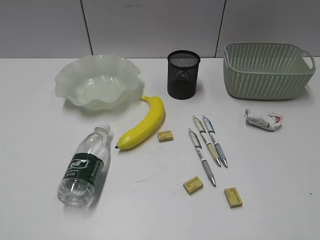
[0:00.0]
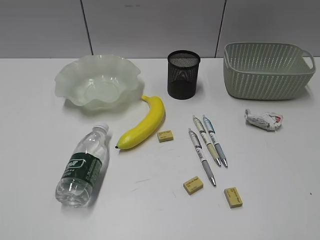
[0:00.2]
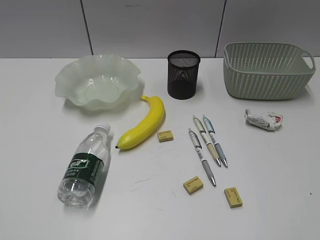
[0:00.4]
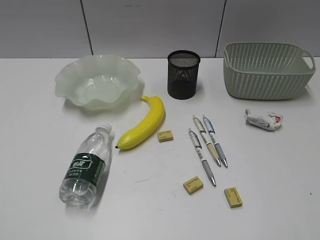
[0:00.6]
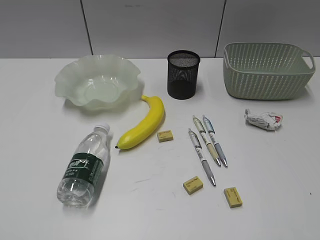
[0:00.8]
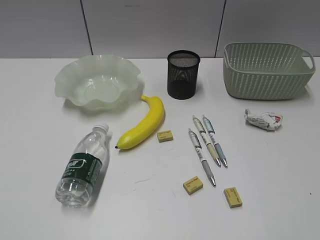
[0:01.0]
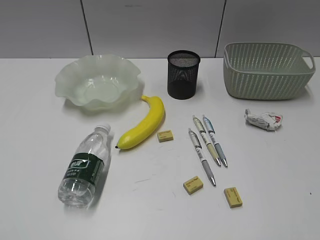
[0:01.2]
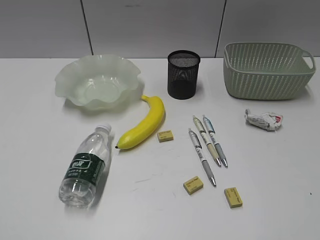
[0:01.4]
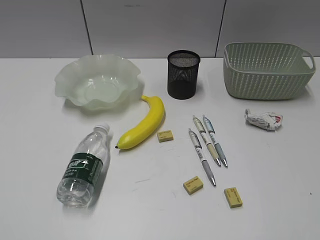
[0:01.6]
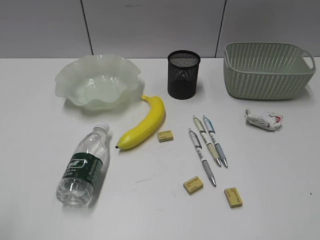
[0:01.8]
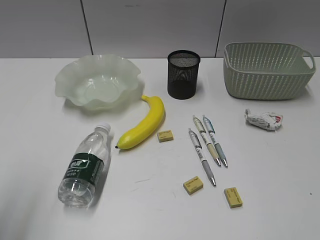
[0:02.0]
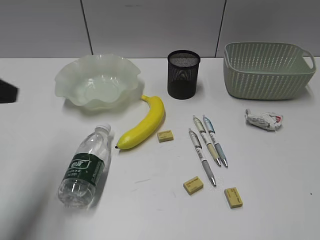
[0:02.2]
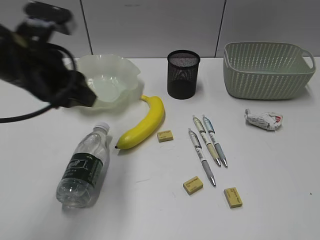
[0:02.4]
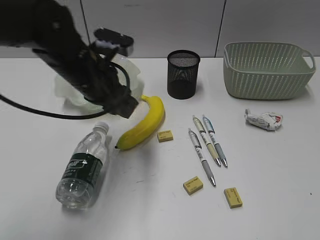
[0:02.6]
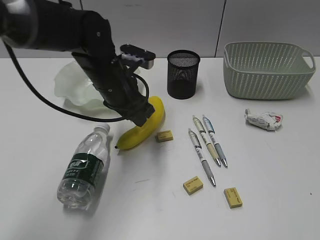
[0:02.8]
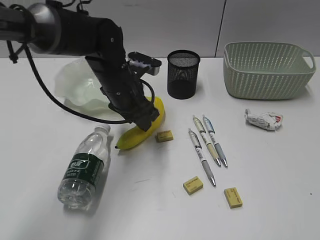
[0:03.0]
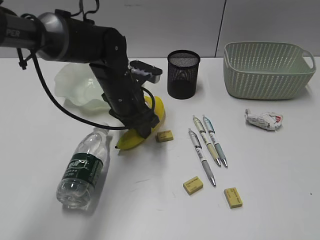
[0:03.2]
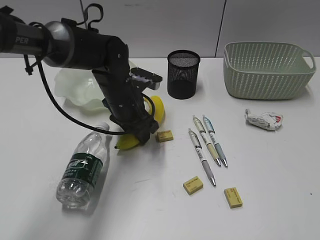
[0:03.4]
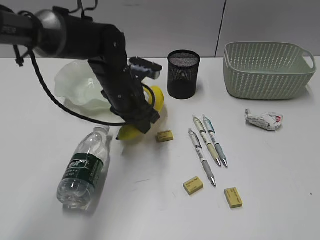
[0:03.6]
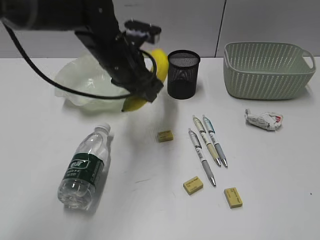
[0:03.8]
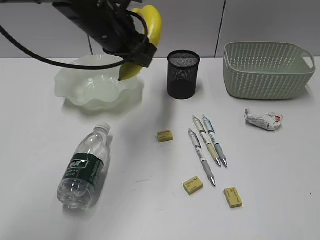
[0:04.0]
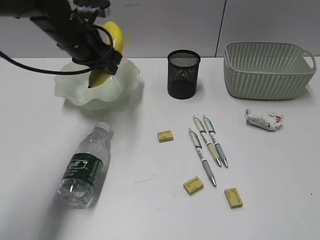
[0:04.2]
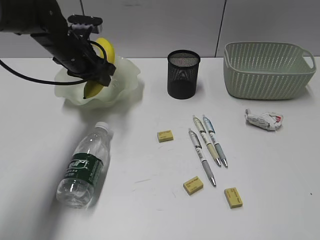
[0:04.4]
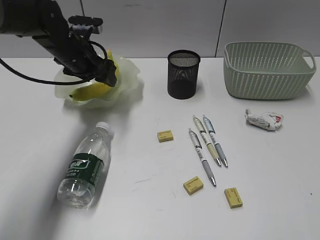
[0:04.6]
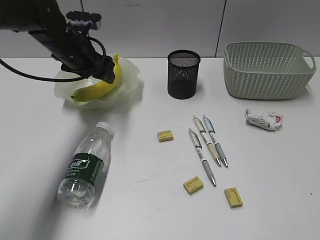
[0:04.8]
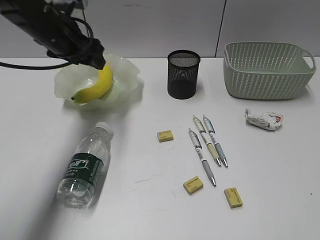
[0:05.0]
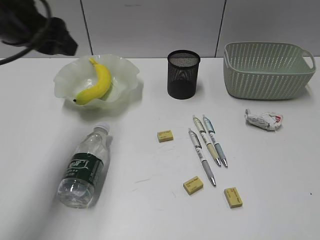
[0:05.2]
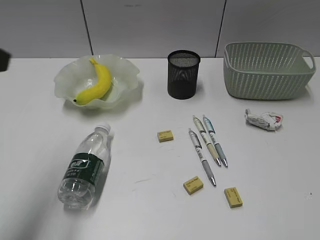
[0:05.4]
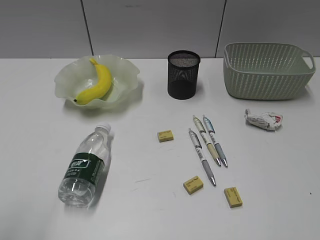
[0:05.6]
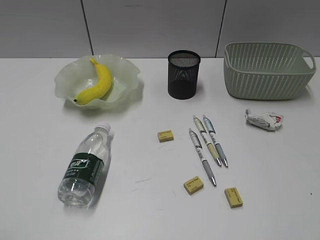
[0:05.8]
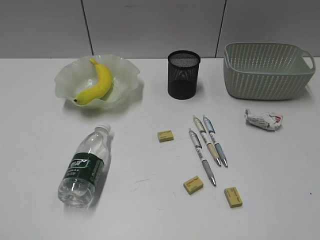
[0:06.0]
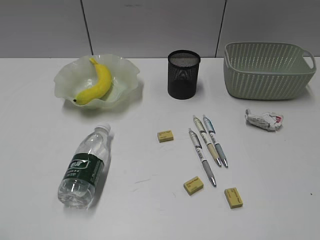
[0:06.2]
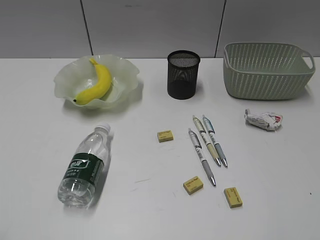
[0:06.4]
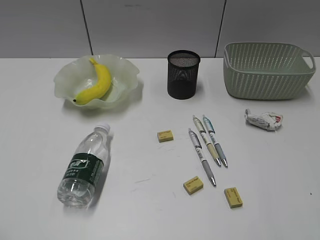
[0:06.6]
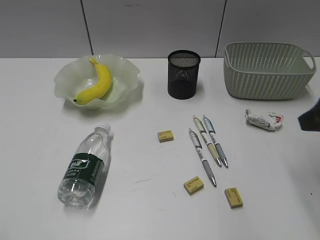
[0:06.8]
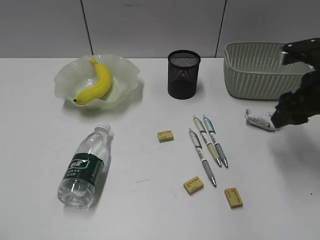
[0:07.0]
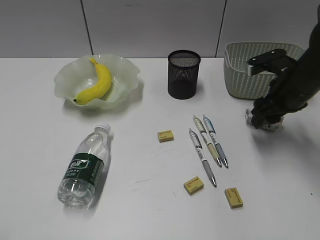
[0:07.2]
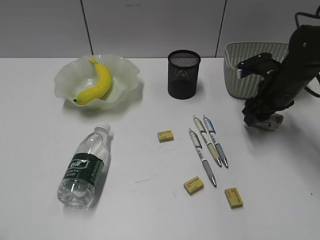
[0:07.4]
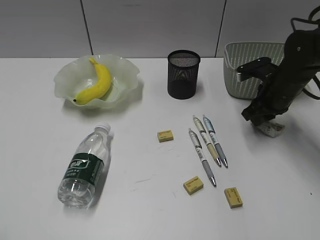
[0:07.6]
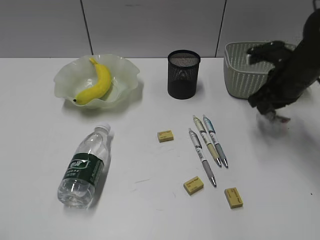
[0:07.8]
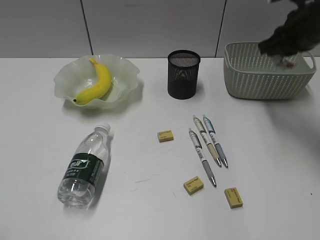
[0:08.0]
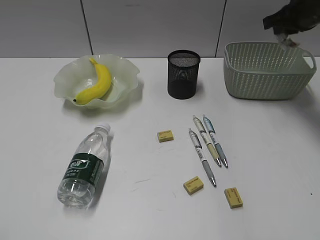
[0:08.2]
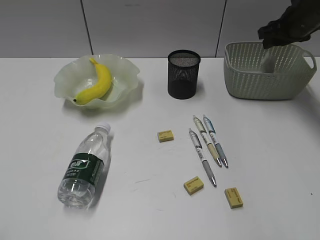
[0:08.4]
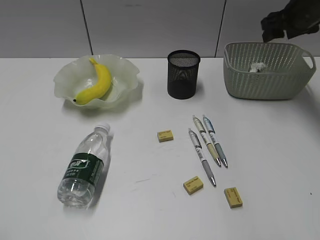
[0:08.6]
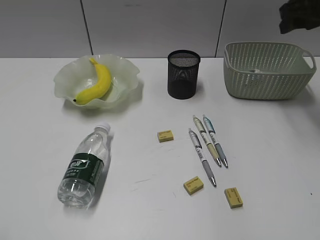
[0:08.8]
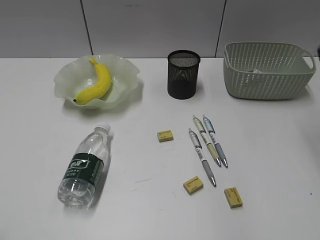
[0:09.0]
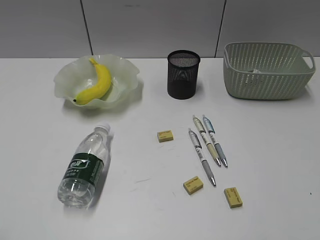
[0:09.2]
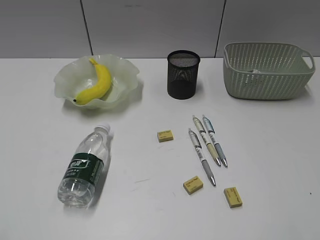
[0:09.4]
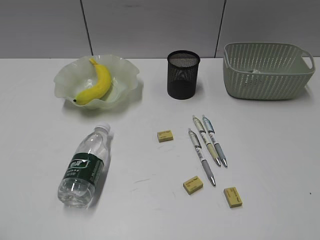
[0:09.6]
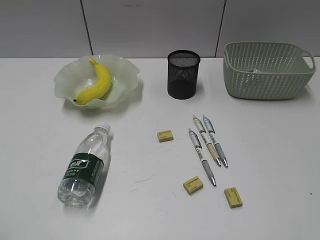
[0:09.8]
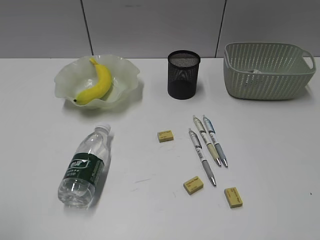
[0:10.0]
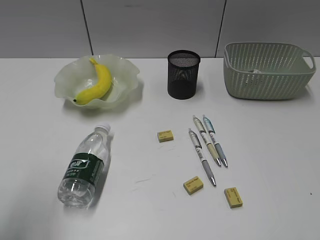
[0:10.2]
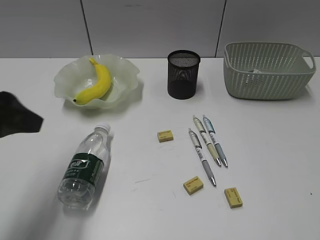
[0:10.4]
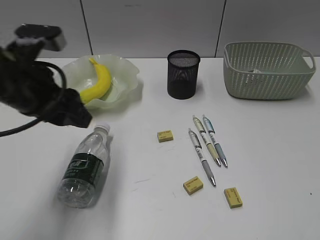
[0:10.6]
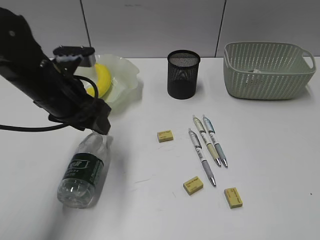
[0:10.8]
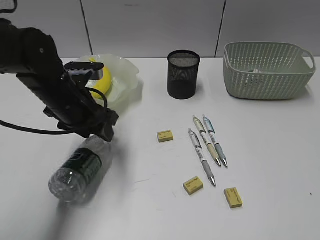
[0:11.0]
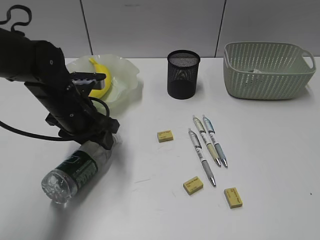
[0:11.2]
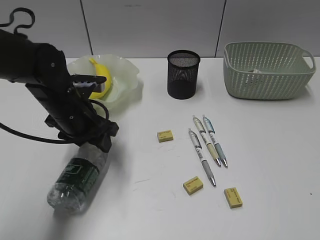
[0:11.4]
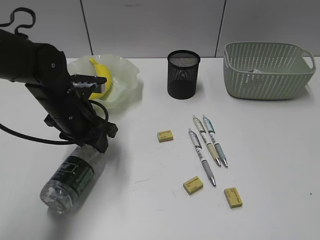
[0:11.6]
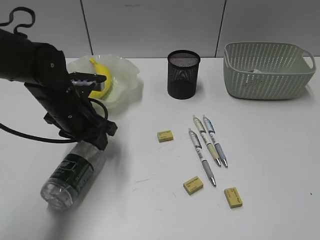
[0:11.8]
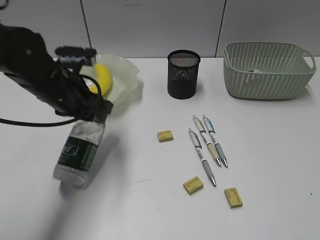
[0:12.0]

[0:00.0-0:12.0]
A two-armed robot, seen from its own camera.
Step, 0:01.6 to 0:03.4: Grasp the banana with left gripper.
Step, 0:03.6 to 0:04.8: Place the banana in the plate with left gripper.
Step, 0:05.0 to 0:07.6: Grasp the waste paper with right gripper.
Step, 0:07.8 to 0:08.4: Place the waste paper in the basket with right gripper.
Step, 0:08.6 to 0:11.4: Grasp the bottle with left gripper.
0:01.6 to 0:03.0: The left gripper shifts some 50 cm forward and to the right.
0:03.0 to 0:04.4: The left gripper travels to the left and forward by roughly 10 cm, and moves some 10 cm upward and comes back.
0:04.4 to 0:06.0: The left gripper shifts roughly 50 cm backward.
0:06.0 to 0:07.6: The right gripper is displaced forward and downward by roughly 40 cm, and opens, then closes again.
0:07.6 to 0:09.0: The right gripper heads upward and backward, covering approximately 20 cm, and opens its fingers.
0:09.0 to 0:10.4: The left gripper goes approximately 20 cm forward and to the right.
0:10.4 to 0:12.0: The left gripper heads forward, downward and to the right, covering some 20 cm.

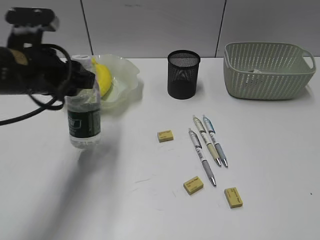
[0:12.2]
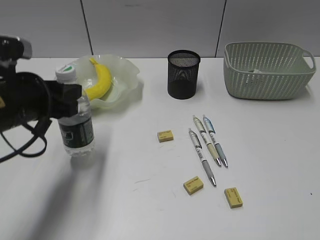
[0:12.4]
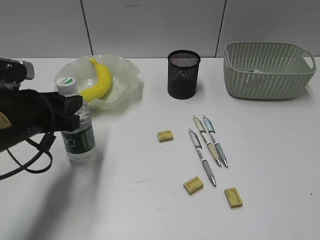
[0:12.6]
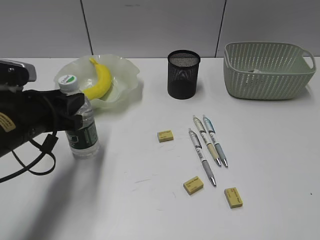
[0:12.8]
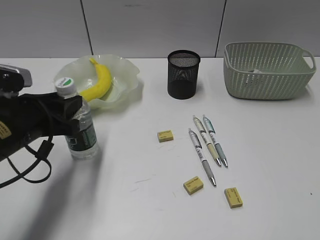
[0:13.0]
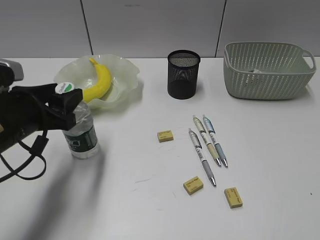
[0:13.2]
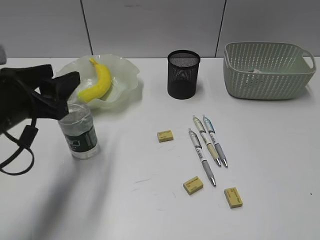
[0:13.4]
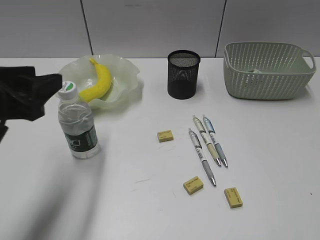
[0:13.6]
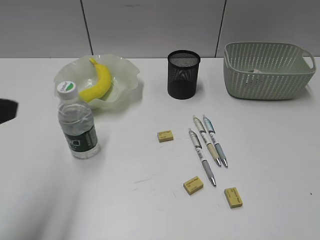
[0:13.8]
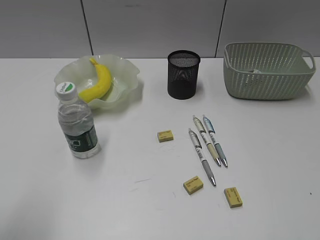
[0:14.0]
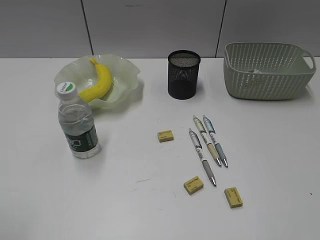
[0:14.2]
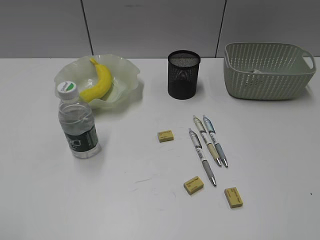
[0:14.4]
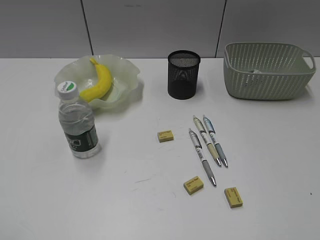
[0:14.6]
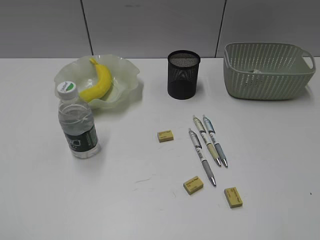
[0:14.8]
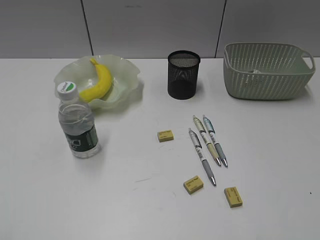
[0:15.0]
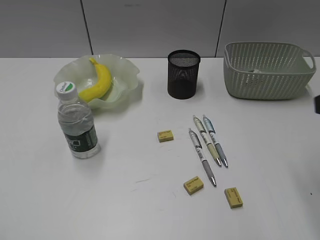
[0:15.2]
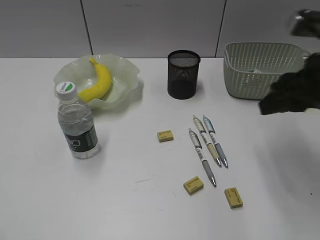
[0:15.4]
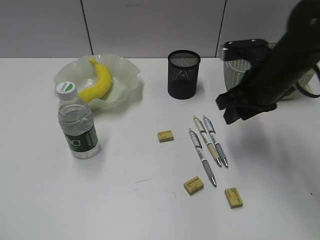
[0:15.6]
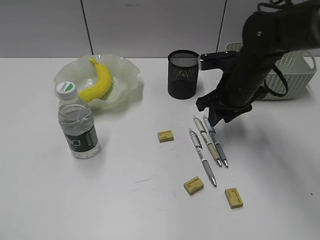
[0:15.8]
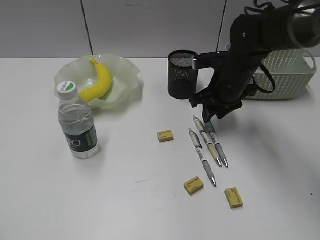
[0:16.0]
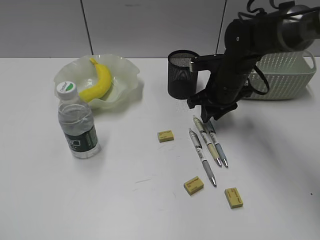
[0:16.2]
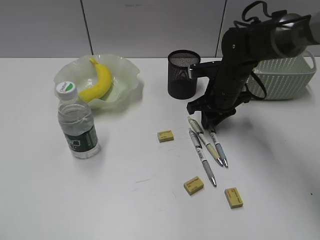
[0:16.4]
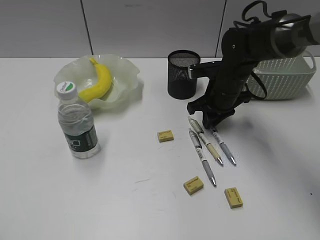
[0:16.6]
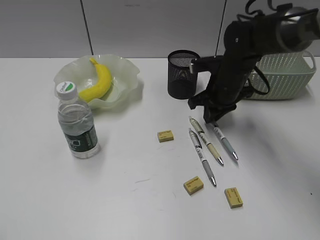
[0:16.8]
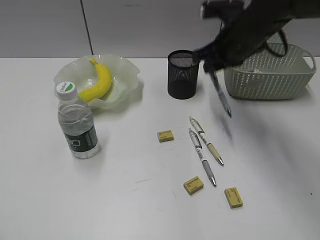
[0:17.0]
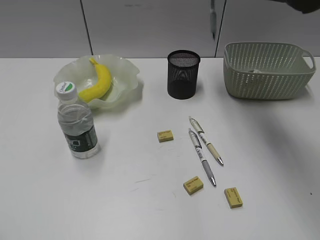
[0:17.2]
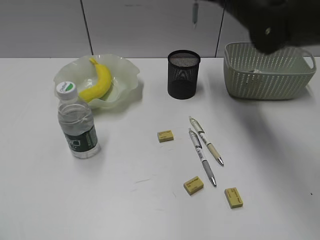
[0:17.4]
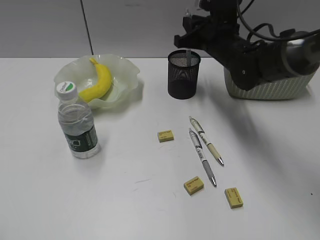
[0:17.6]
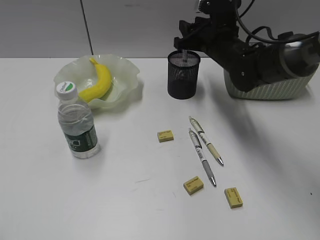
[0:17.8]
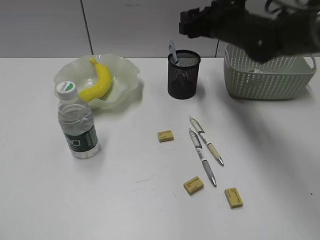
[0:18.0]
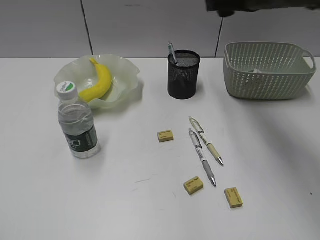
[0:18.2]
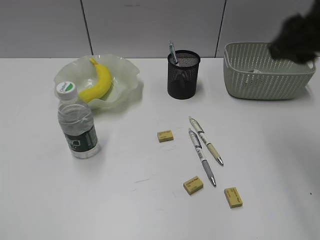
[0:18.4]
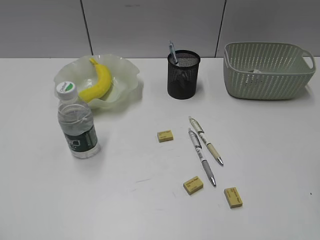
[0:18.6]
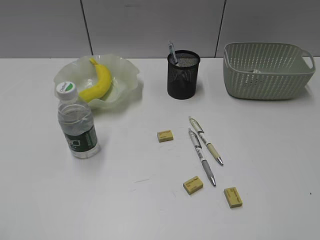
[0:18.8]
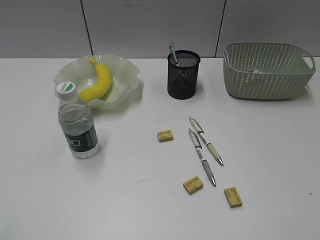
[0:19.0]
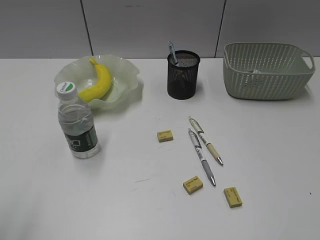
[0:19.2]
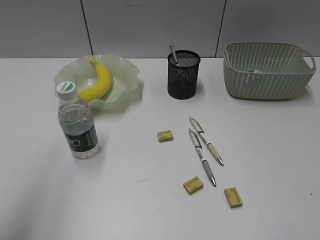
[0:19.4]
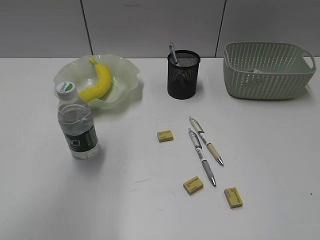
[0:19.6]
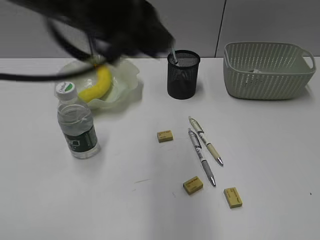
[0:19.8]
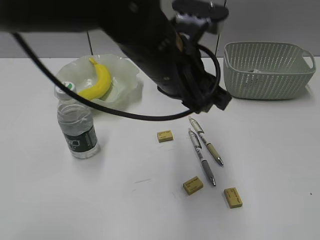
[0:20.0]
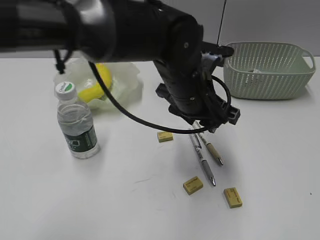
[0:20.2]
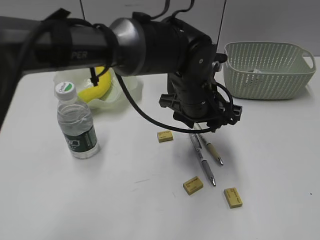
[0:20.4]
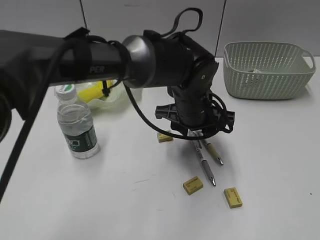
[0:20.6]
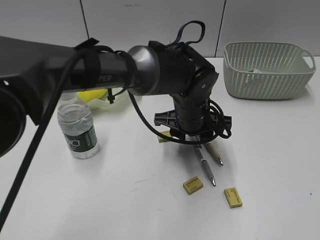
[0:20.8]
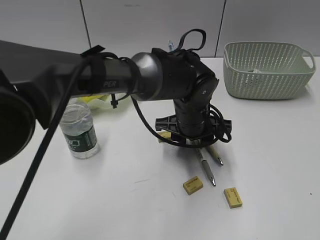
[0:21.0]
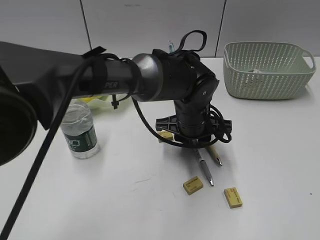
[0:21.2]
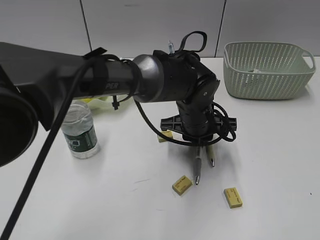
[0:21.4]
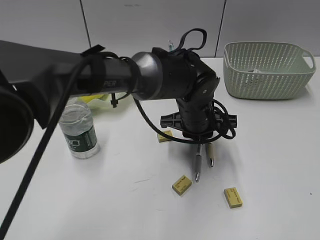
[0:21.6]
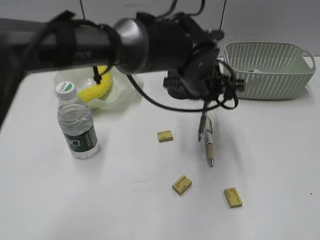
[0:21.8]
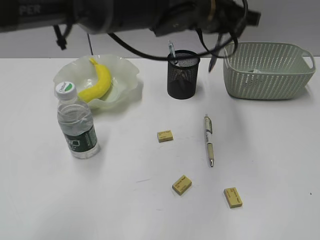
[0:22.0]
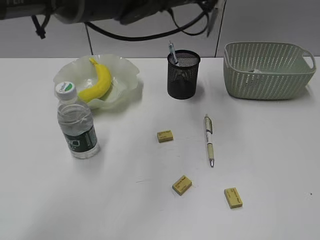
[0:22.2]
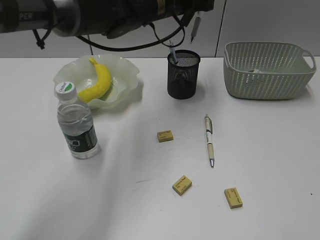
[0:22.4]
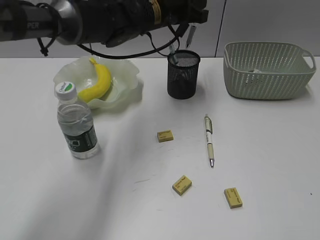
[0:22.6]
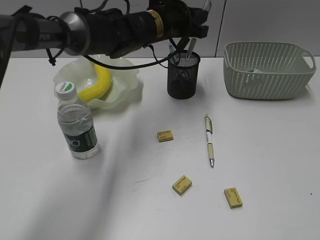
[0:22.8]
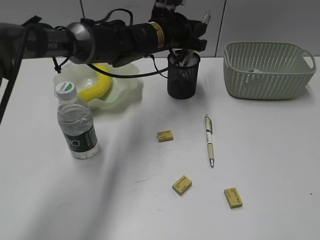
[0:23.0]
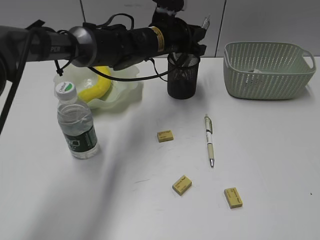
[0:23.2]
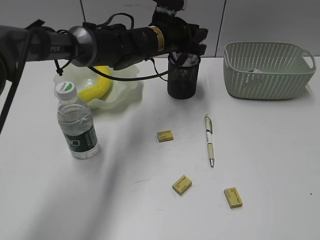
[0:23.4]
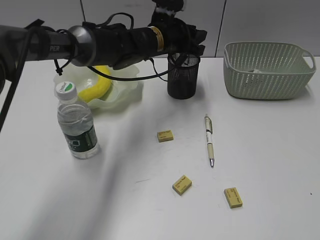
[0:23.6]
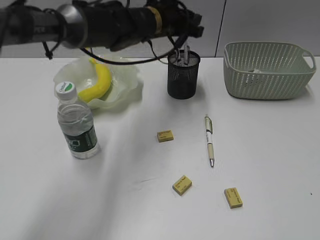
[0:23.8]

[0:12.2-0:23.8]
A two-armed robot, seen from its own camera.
Step, 0:12.2 to 0:13.4: Stand the bottle with left gripper.
Step, 0:13.6 to 0:16.6: Grasp the blue pen with right gripper.
Step, 0:16.8 to 0:17.8: Place the blue pen in pen holder with right gripper.
Step, 0:18.0 to 0:21.4: Grasp the gray pen with left gripper.
Step, 0:21.6 to 0:23.6: Place the gray pen in pen holder with left gripper.
0:12.2 to 0:13.6: The left gripper shifts roughly 10 cm backward.
0:13.6 to 0:15.0: The left gripper goes approximately 25 cm backward and to the left, and closes up.
0:15.0 to 0:16.6: The right gripper is displaced forward, downward and to the left by some 40 cm, and closes its fingers.
0:16.6 to 0:18.0: The right gripper goes up and down, roughly 20 cm each way, reversing 2 times, and opens its fingers.
0:18.0 to 0:19.4: The right gripper travels backward and to the right by some 50 cm. The left gripper travels forward and upward by approximately 15 cm.
0:19.4 to 0:21.0: The left gripper moves to the right, downward and forward, about 50 cm.
0:21.0 to 0:22.4: The left gripper goes roughly 20 cm upward and forward, and closes.
0:22.4 to 0:23.8: The left gripper goes some 5 cm downward, and opens. Meanwhile the right gripper closes up.
